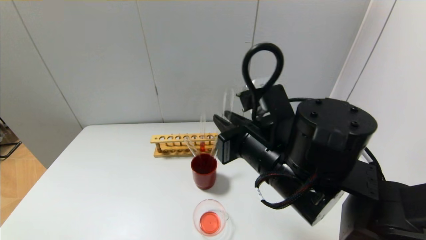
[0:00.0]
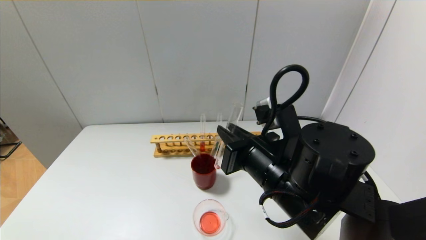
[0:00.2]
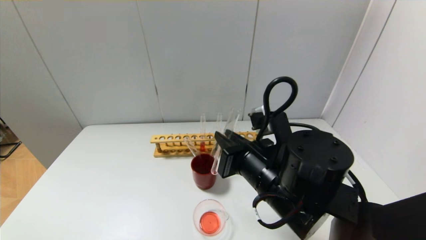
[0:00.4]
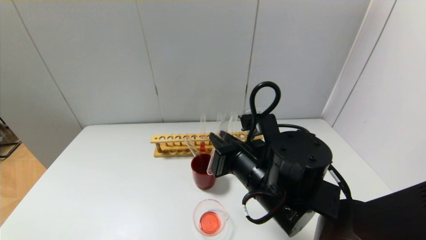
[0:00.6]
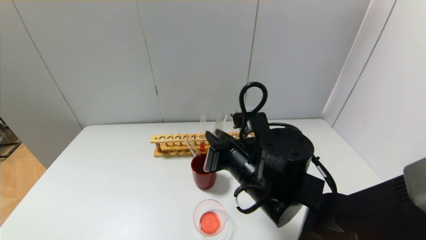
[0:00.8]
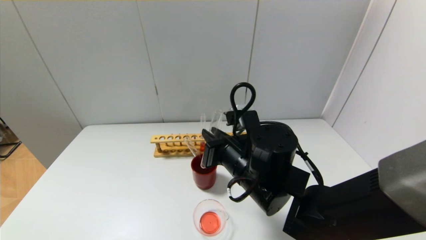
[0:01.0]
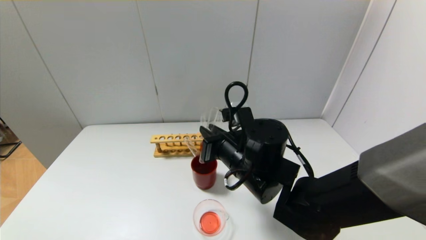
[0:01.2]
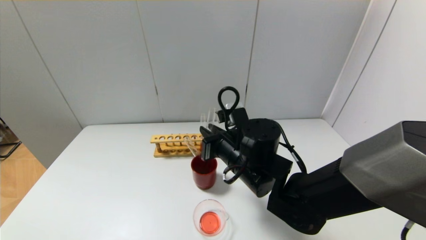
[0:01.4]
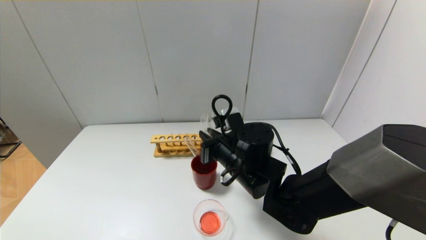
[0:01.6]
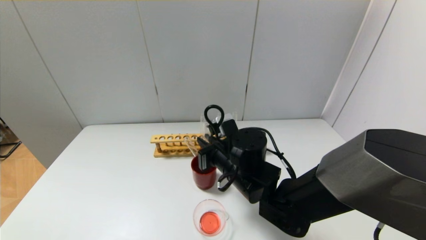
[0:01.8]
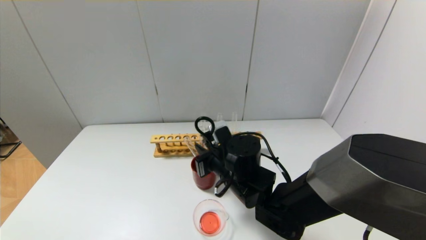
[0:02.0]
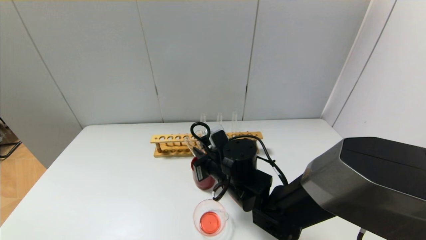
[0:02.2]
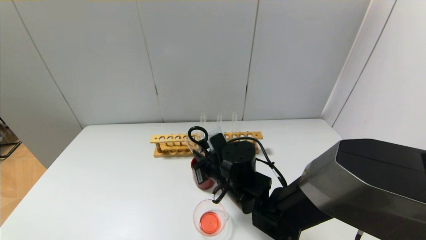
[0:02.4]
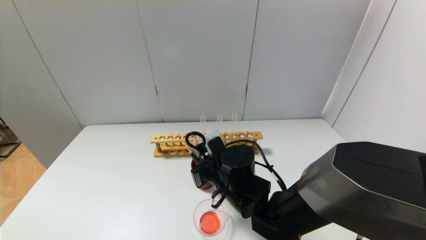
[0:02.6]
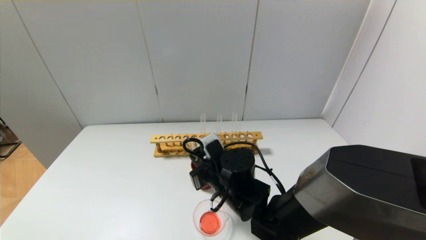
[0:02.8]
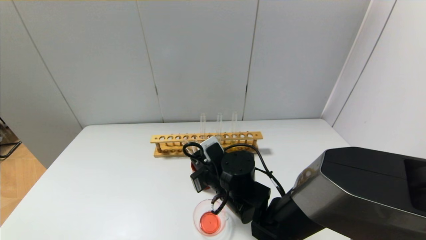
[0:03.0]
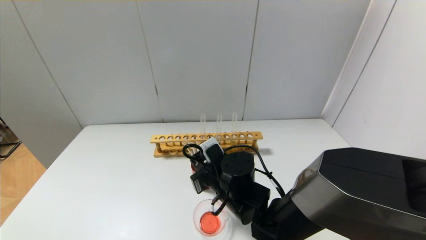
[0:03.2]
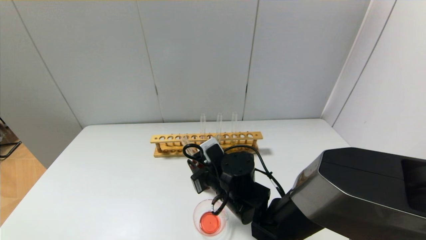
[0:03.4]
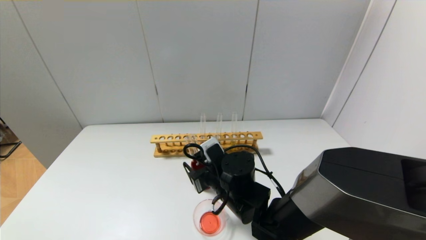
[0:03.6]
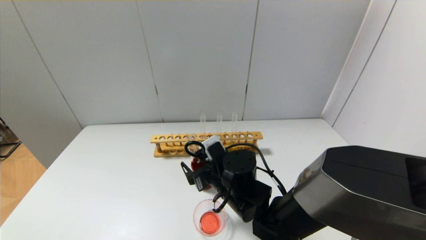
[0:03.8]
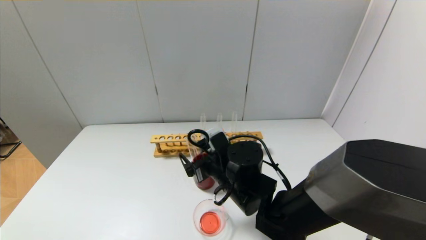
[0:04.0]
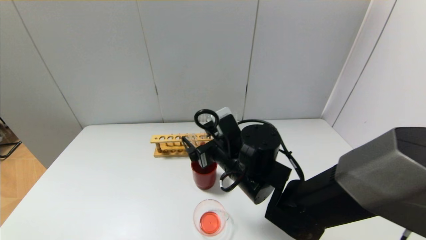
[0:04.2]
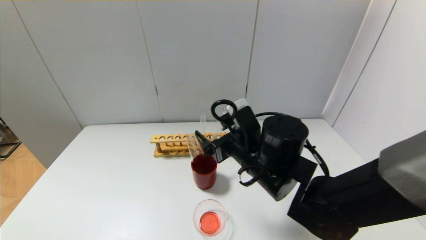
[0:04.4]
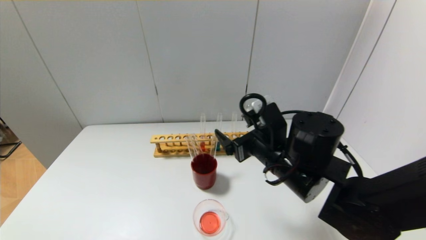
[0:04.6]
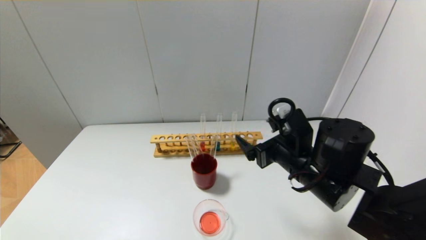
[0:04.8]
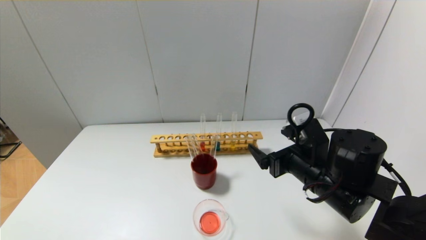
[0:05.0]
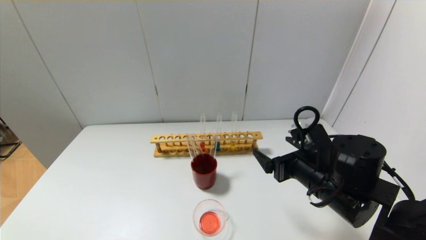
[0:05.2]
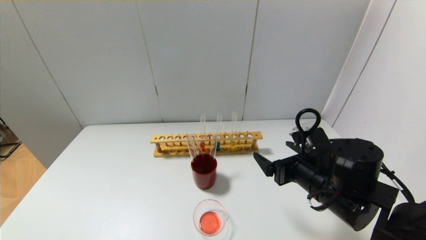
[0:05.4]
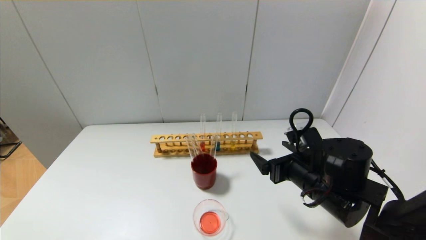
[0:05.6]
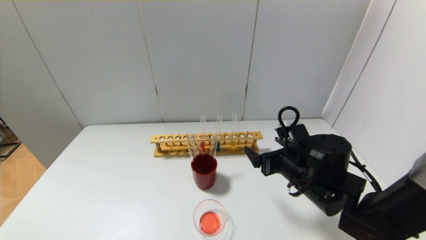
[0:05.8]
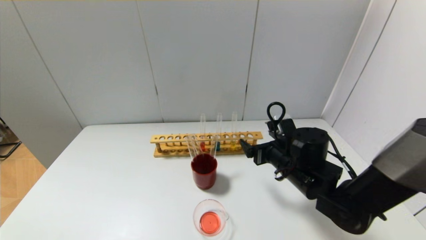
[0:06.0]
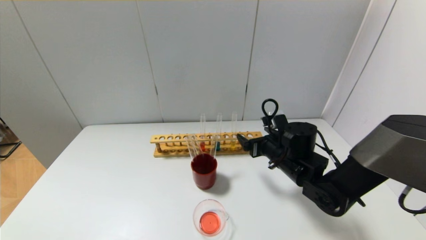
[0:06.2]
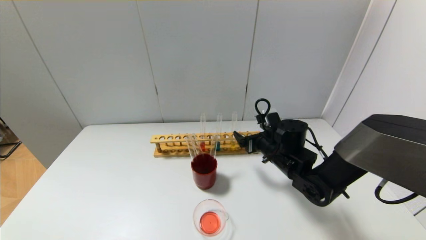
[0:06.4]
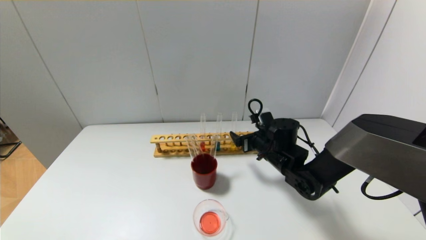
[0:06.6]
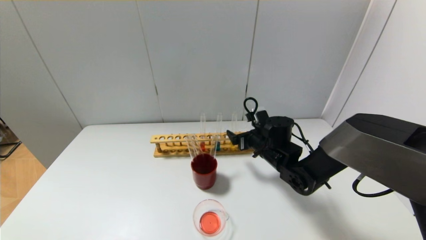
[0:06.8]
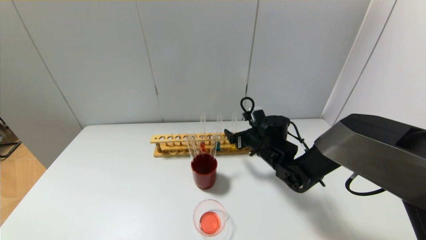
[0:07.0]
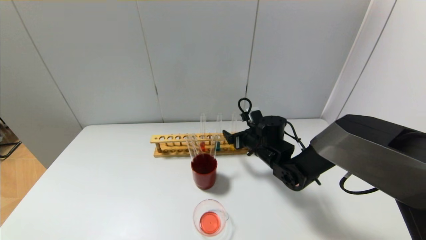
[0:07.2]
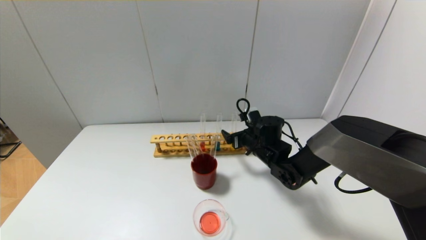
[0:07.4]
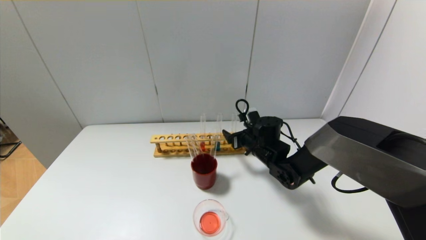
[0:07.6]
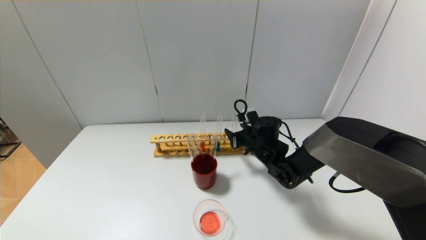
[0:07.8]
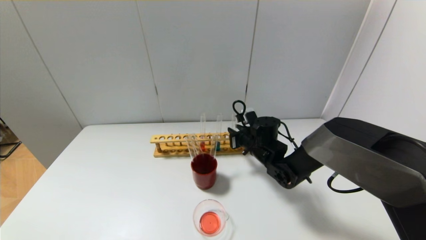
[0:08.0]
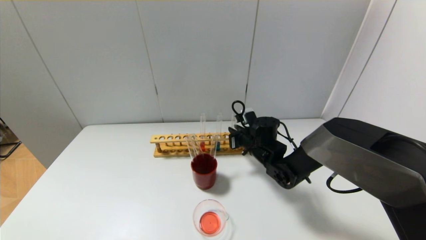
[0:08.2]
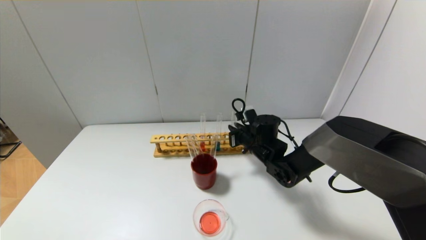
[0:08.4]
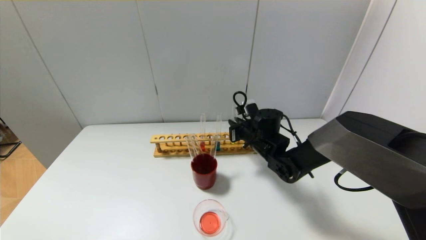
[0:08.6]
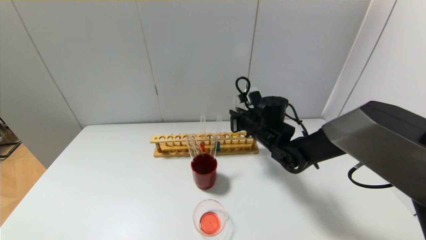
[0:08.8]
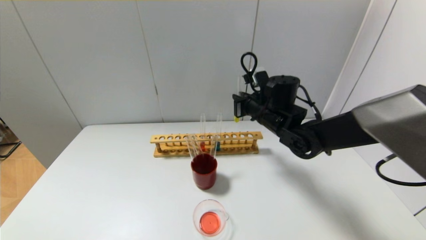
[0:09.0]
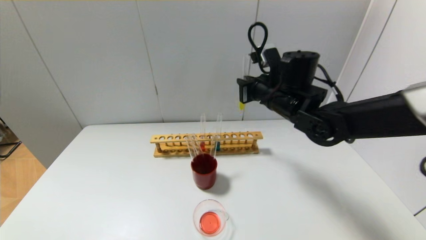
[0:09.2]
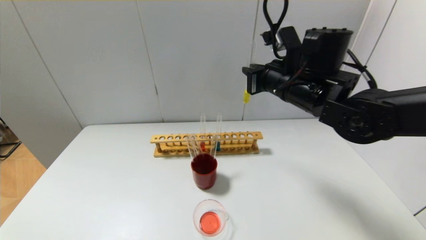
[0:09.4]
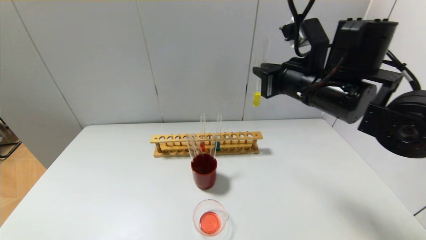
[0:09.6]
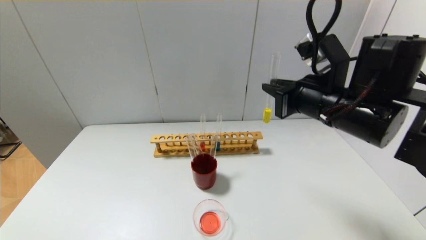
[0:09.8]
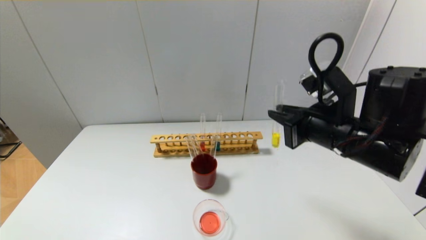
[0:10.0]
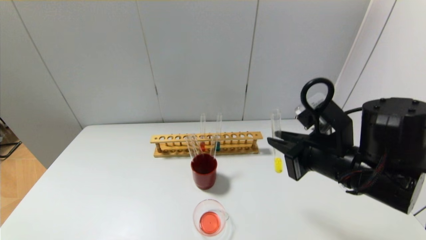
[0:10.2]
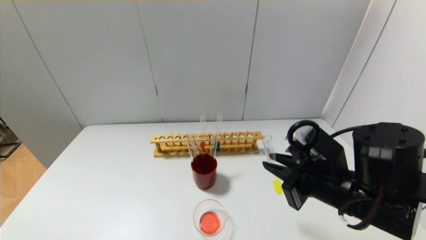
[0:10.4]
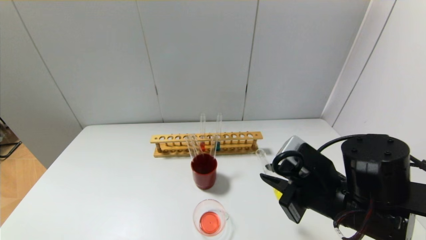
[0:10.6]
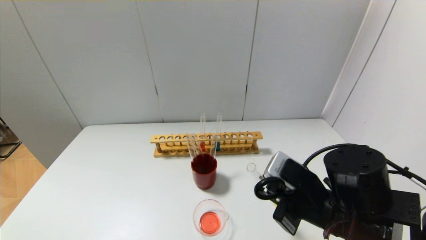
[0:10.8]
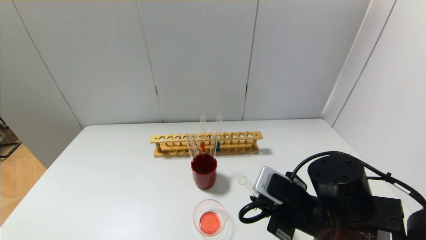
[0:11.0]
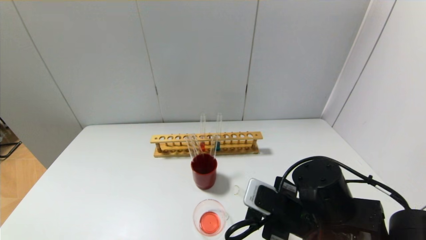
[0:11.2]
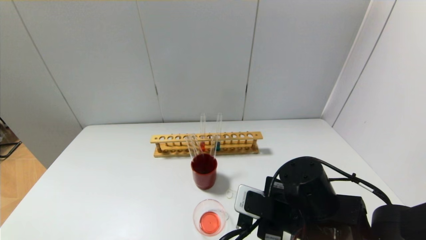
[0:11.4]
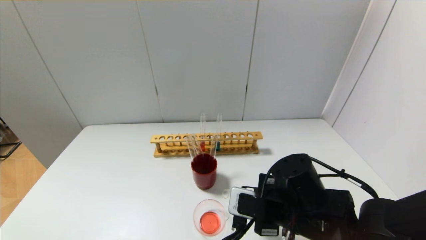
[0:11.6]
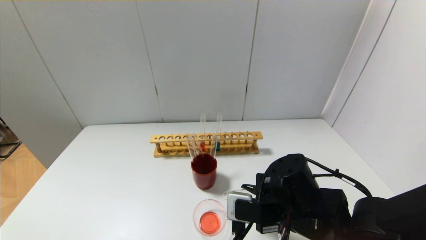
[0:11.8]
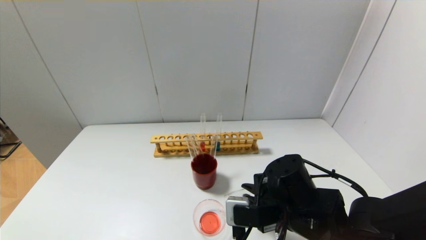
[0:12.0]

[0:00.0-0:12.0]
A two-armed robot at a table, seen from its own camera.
Step, 0:00.0 to 0:03.4: Place the test tube into the brown cup with the right gripper.
Step, 0:03.6 to 0:08.2: Grasp the yellow reagent with the right gripper.
0:00.0 to 0:01.6: The right gripper heads downward and forward, covering approximately 10 cm.
0:01.6 to 0:03.0: The right gripper goes roughly 5 cm downward.
0:03.0 to 0:04.4: The right gripper goes about 10 cm upward and to the right, and opens.
0:04.4 to 0:06.0: The right gripper travels to the right and downward by approximately 10 cm.
0:06.0 to 0:07.6: The right gripper is displaced forward by roughly 10 cm.
0:07.6 to 0:09.0: The right gripper is displaced upward by roughly 10 cm, and closes.
0:09.0 to 0:10.4: The right gripper shifts approximately 20 cm backward.
0:10.4 to 0:12.0: The right gripper travels downward and to the left by some 10 cm.

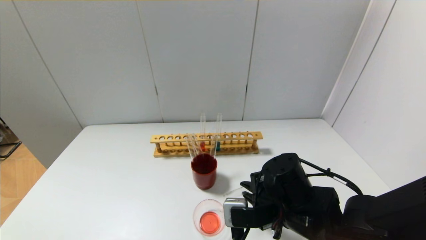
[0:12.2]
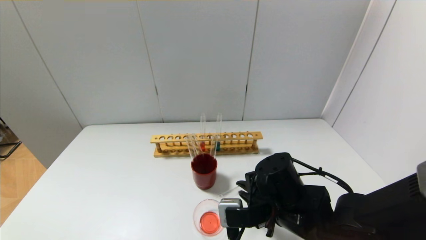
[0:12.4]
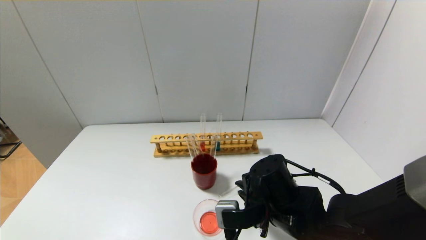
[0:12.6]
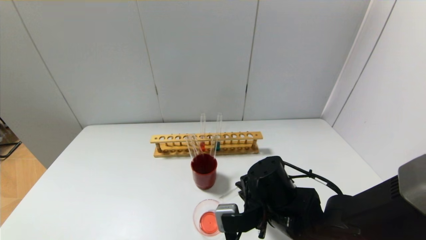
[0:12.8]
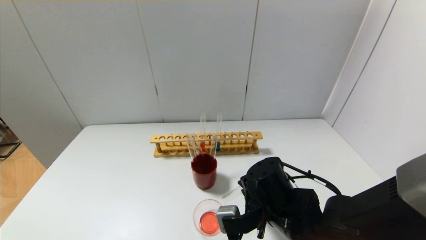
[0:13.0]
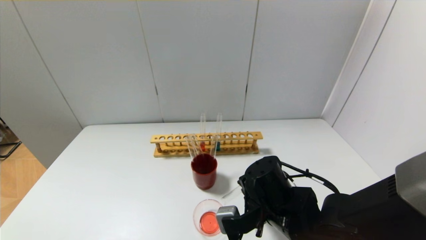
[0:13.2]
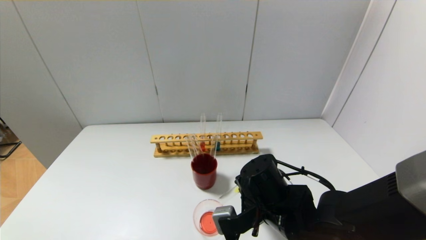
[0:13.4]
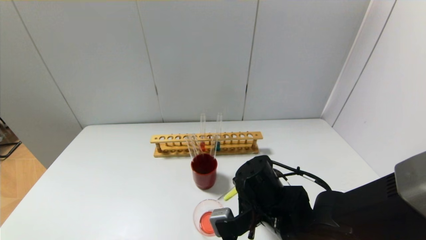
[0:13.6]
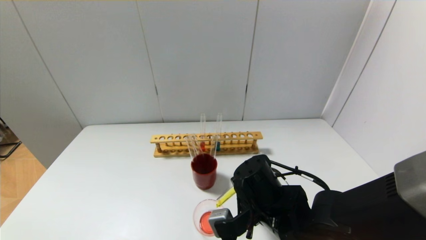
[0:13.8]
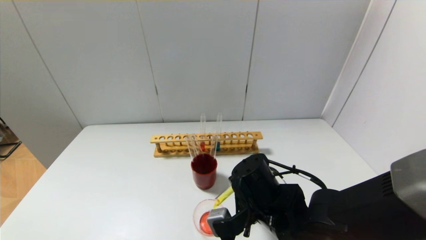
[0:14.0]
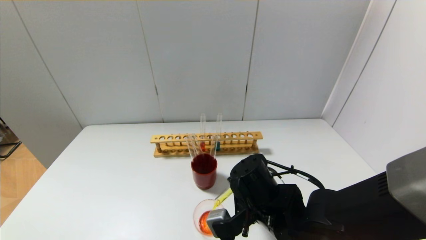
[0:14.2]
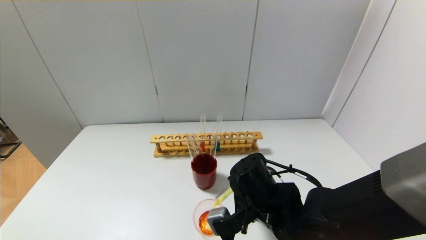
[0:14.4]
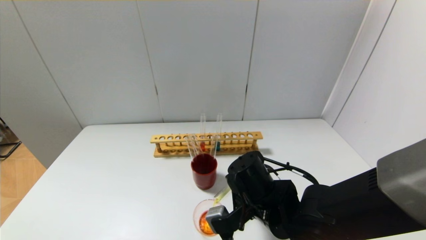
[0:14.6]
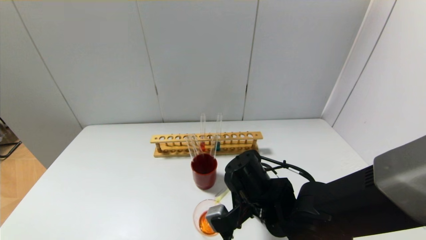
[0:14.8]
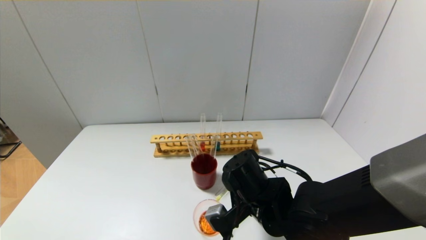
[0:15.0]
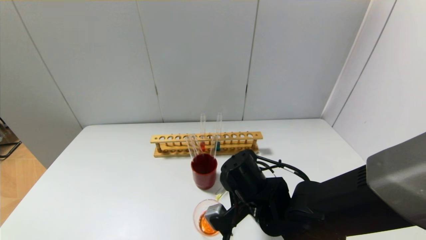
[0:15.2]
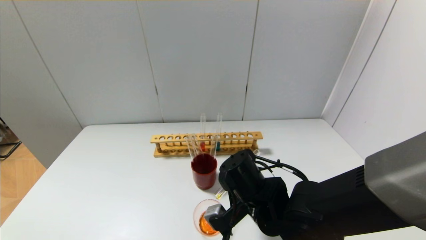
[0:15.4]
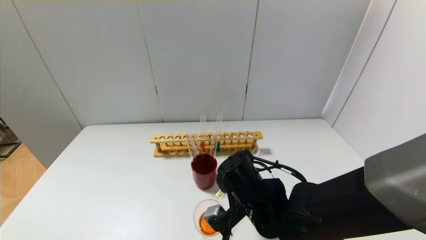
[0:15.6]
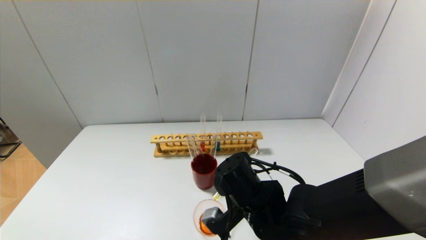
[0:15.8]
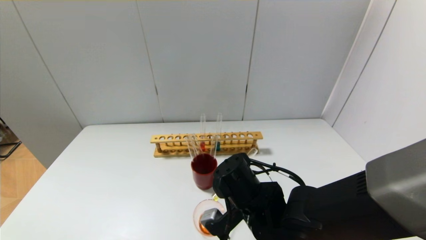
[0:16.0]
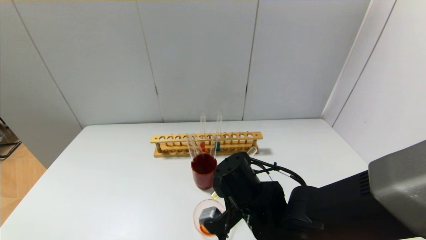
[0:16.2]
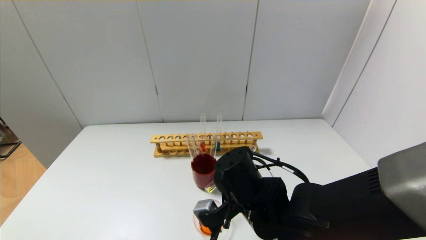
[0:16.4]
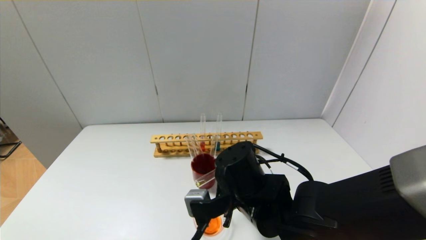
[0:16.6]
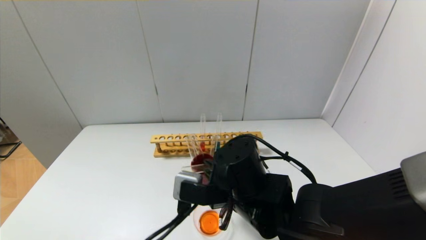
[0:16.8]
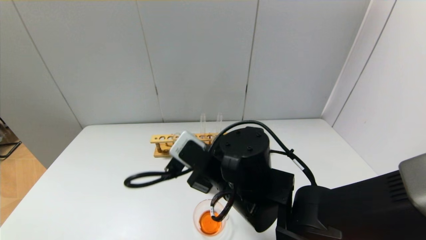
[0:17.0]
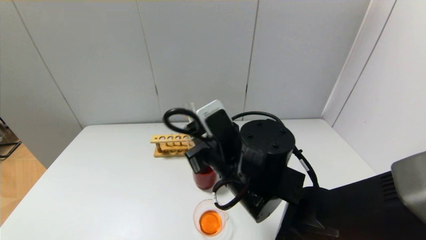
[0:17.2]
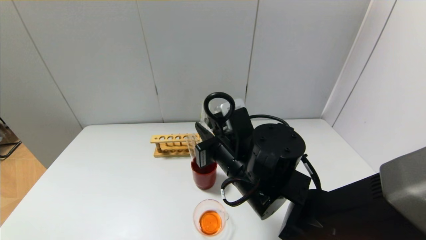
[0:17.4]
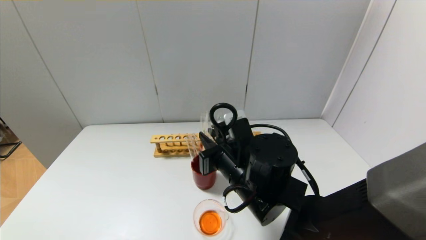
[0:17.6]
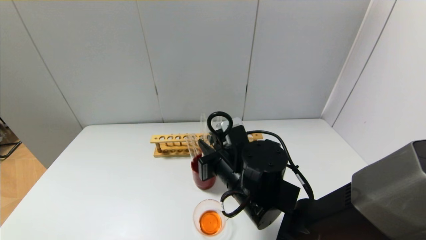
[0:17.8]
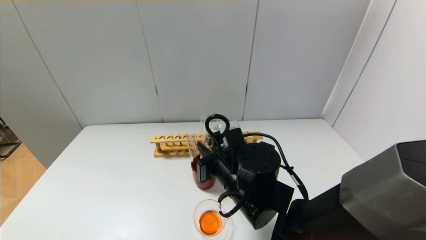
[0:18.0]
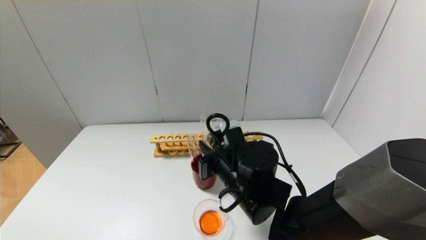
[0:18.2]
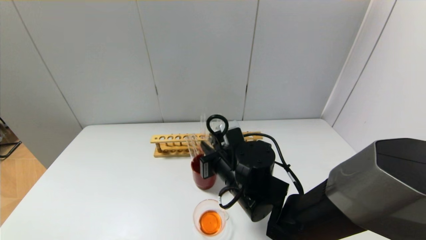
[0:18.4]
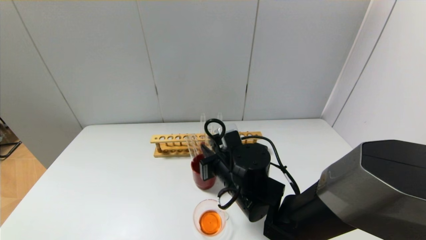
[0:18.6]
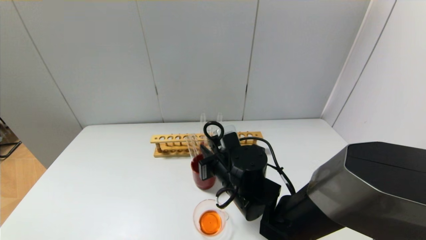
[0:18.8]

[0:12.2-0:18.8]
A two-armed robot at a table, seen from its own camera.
Step, 0:12.2 to 0:16.2: Pour the yellow reagent into the graduated cylinder with the right gripper.
0:13.8 to 0:15.4: The grippers move only a little.
0:15.4 to 0:17.2: The right gripper goes approximately 10 cm upward.
0:17.2 to 0:18.8: The right gripper travels downward by about 10 cm.
